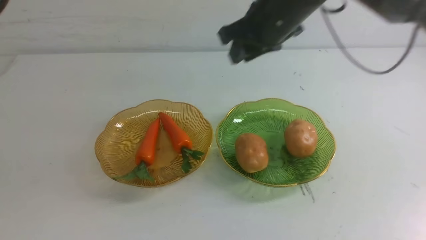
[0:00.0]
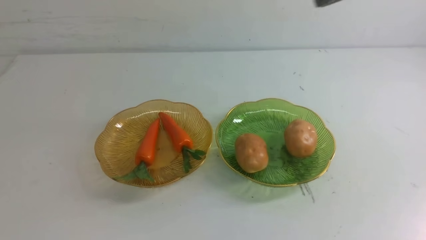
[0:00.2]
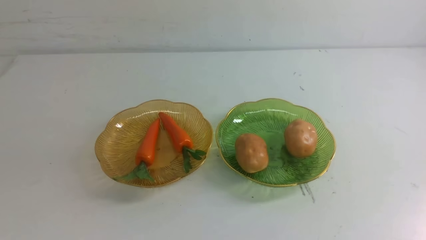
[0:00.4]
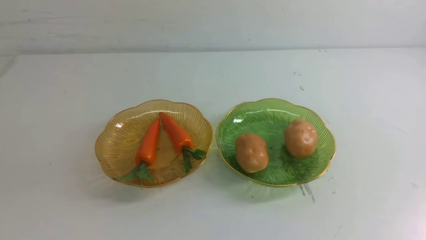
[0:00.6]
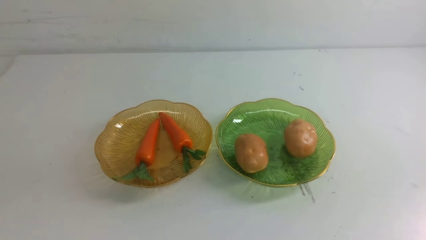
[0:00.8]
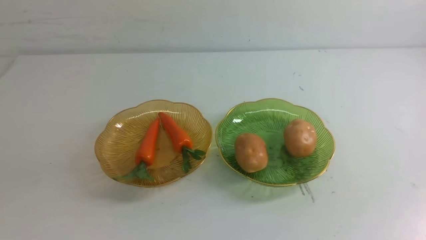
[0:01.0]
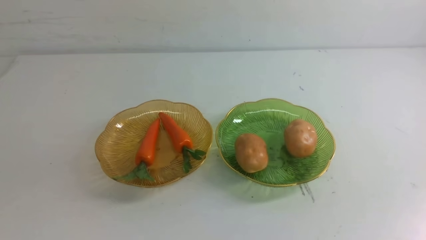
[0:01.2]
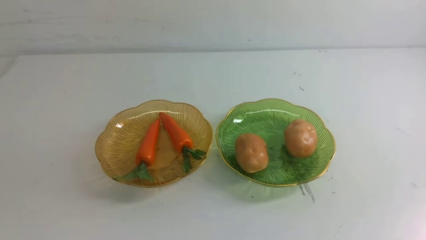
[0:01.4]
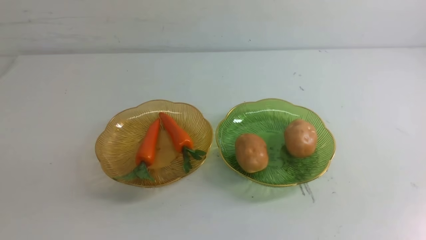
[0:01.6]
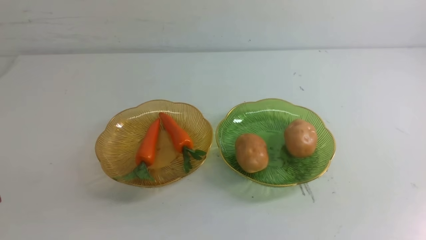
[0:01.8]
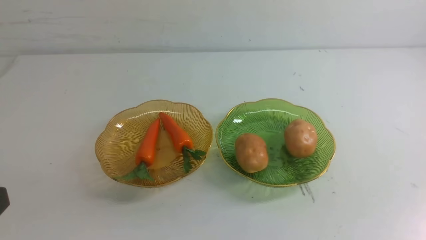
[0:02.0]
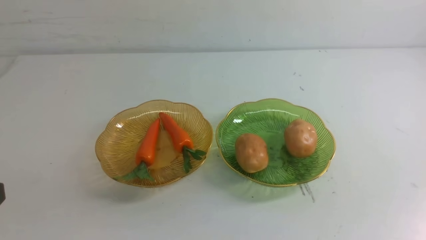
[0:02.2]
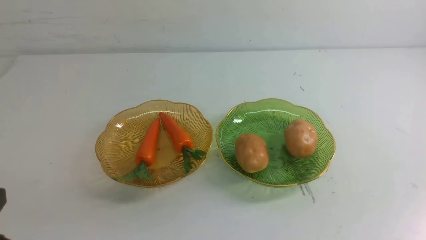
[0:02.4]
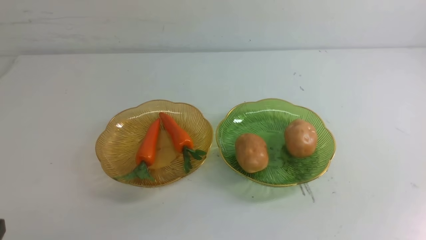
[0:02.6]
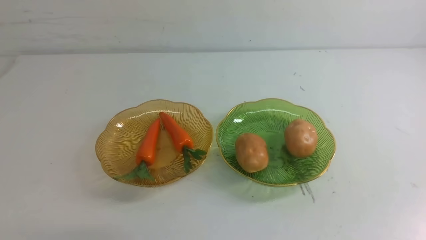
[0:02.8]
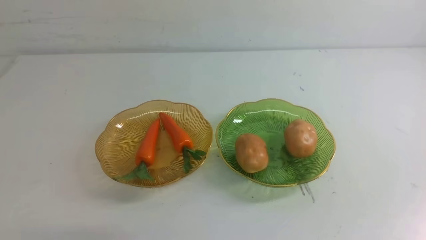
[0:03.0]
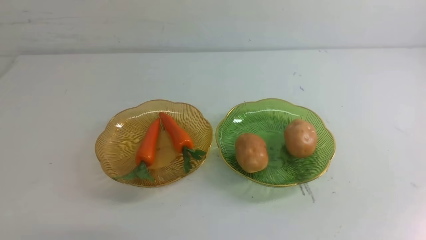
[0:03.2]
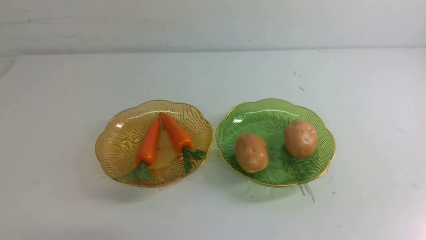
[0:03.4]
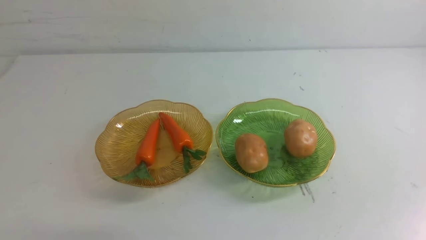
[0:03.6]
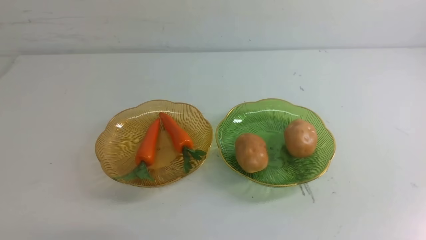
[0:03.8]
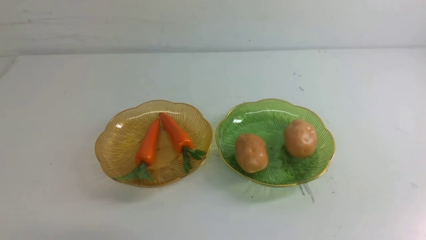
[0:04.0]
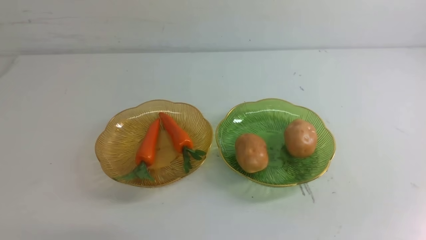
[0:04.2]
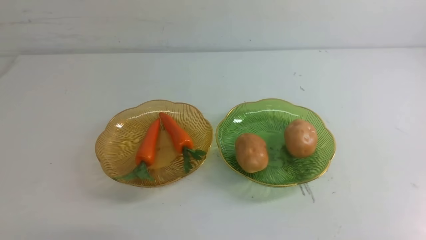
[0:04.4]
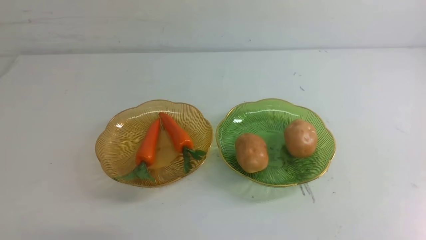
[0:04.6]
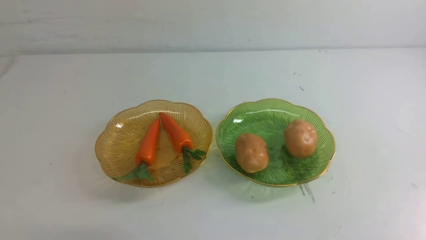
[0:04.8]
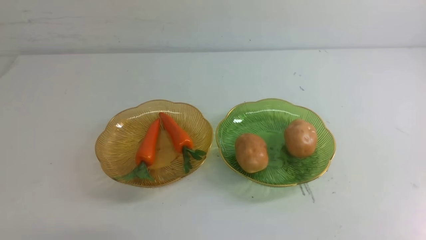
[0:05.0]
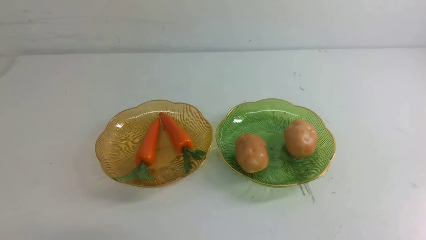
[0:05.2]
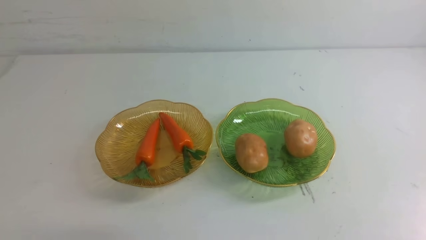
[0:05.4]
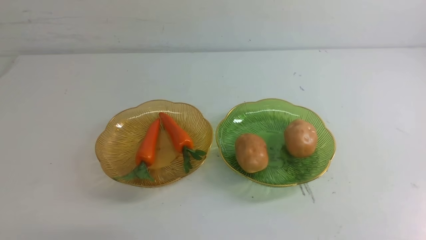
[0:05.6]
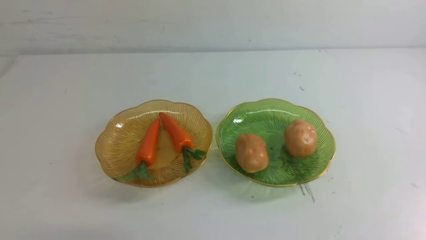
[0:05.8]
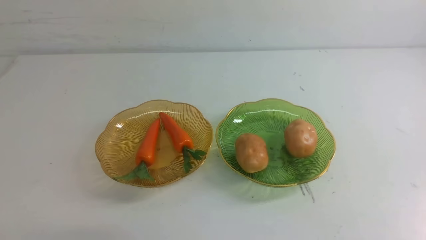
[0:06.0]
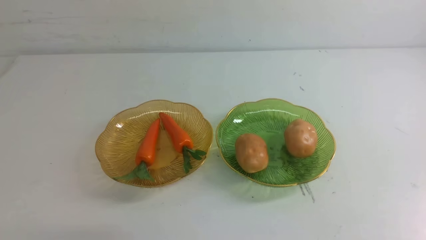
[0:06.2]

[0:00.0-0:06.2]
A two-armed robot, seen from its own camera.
0:00.0 to 0:01.6: The right gripper goes roughly 35 cm backward and to the right. The left gripper is displaced downward and backward by roughly 15 cm.
0:04.6 to 0:06.2: Neither gripper changes place.
